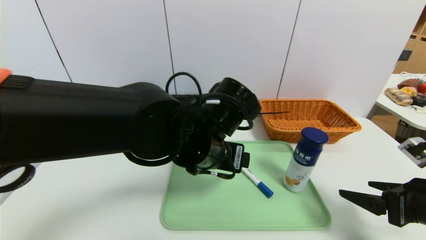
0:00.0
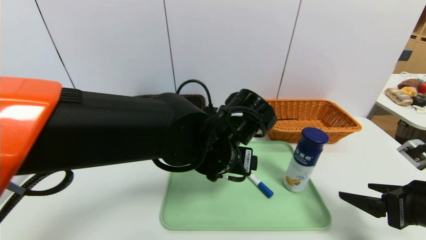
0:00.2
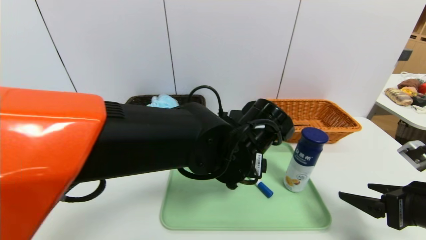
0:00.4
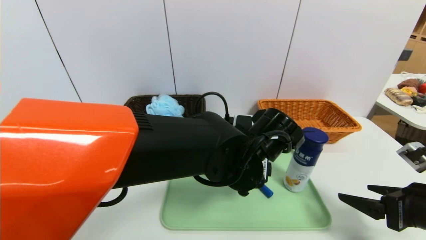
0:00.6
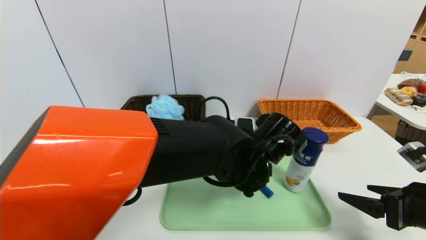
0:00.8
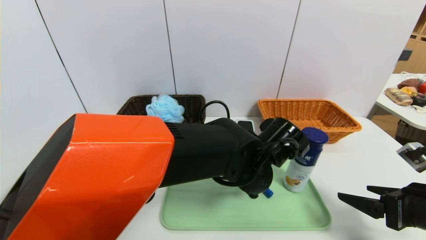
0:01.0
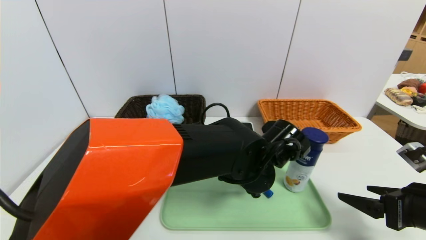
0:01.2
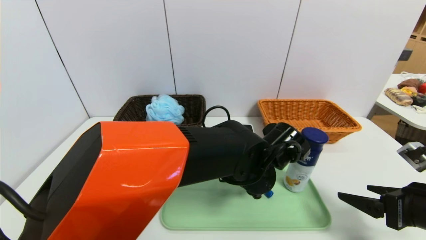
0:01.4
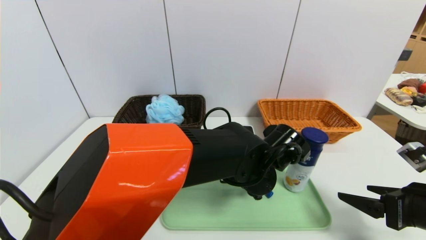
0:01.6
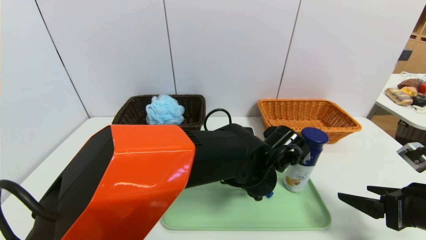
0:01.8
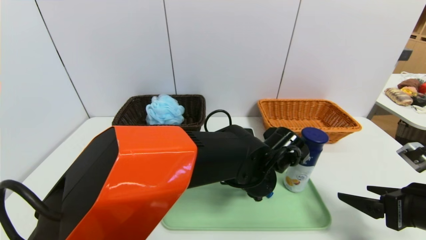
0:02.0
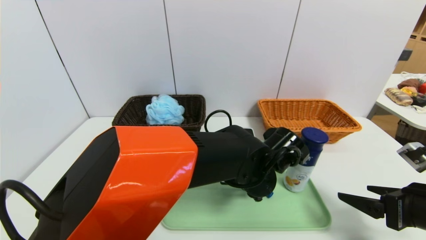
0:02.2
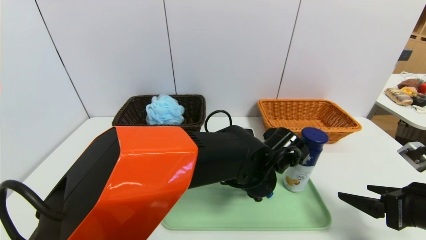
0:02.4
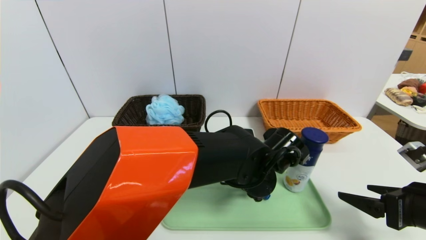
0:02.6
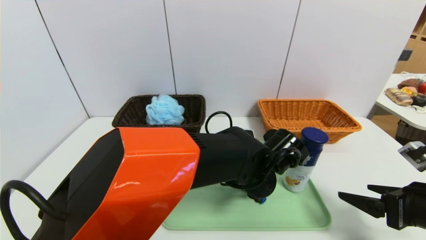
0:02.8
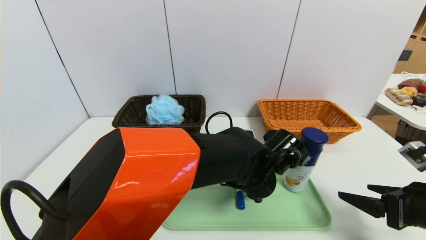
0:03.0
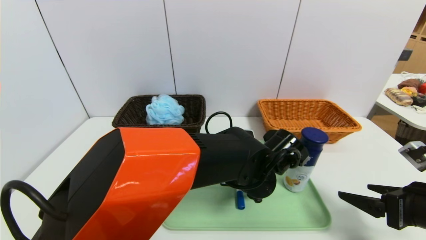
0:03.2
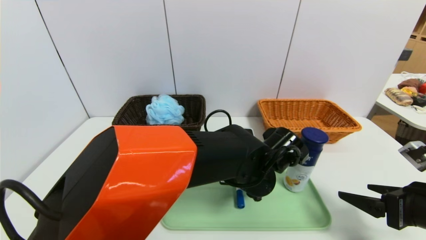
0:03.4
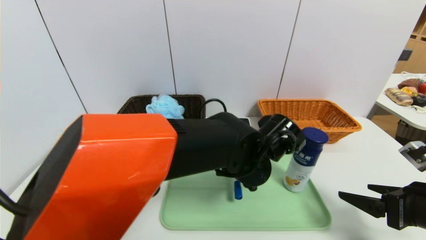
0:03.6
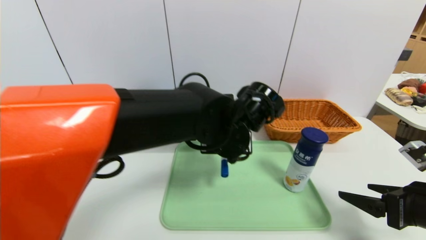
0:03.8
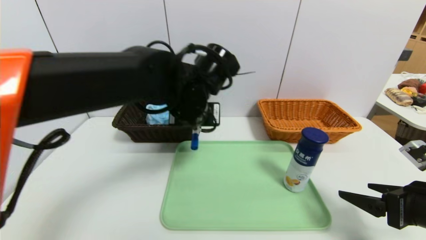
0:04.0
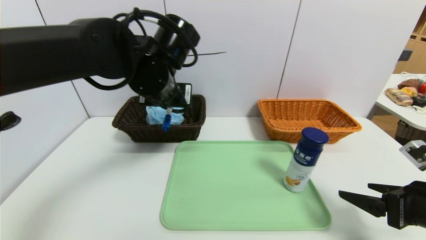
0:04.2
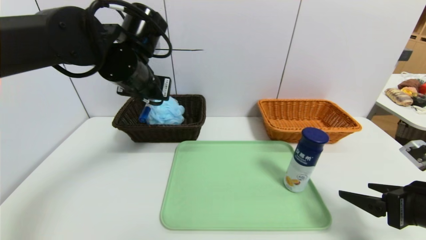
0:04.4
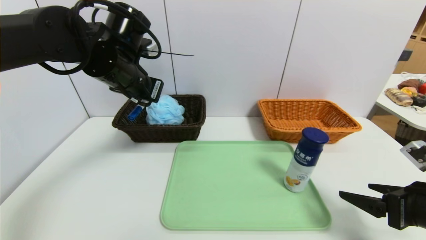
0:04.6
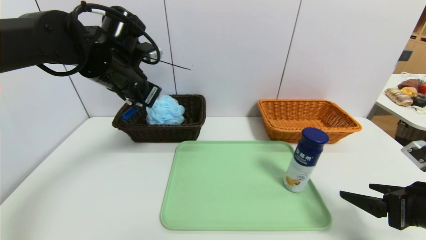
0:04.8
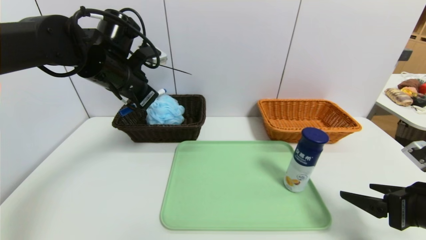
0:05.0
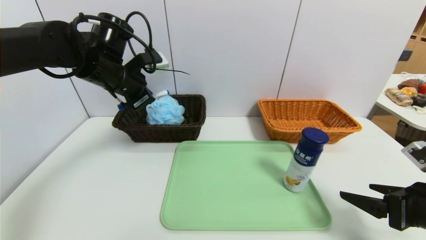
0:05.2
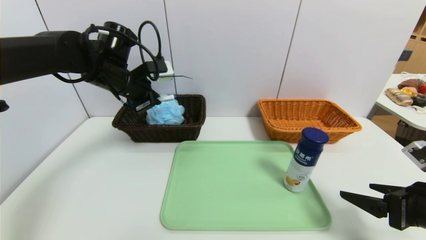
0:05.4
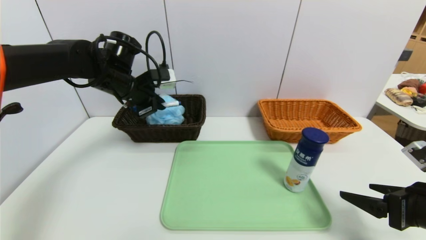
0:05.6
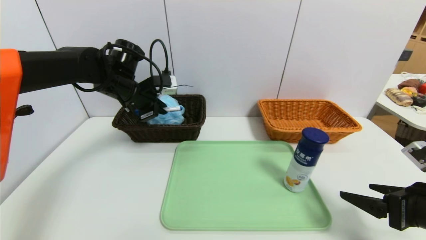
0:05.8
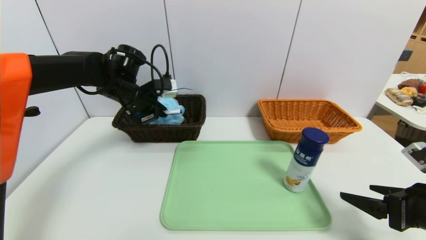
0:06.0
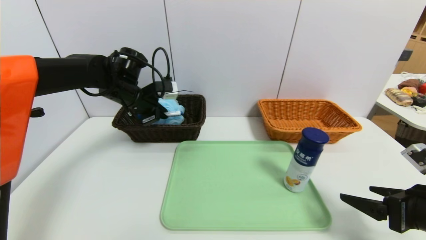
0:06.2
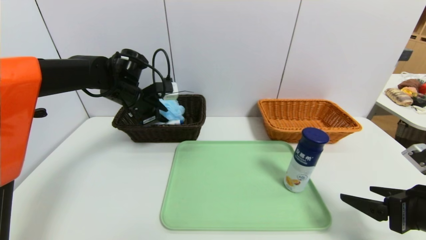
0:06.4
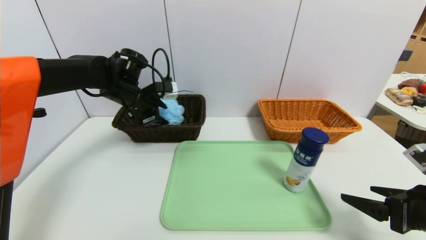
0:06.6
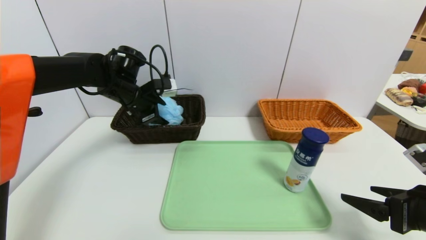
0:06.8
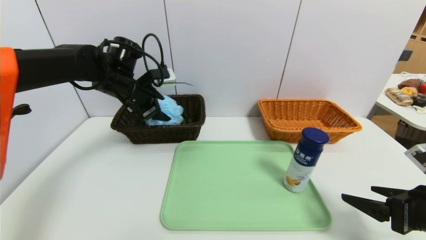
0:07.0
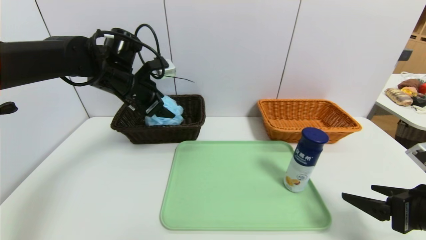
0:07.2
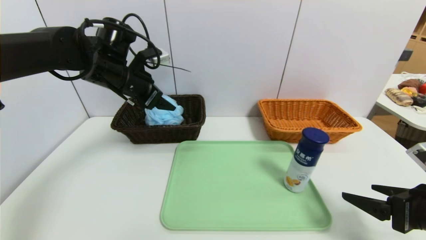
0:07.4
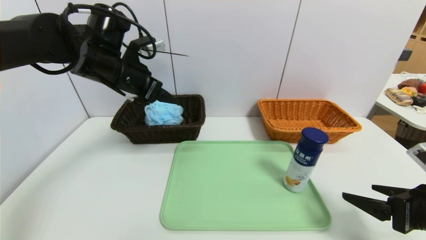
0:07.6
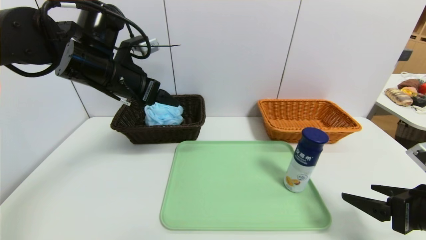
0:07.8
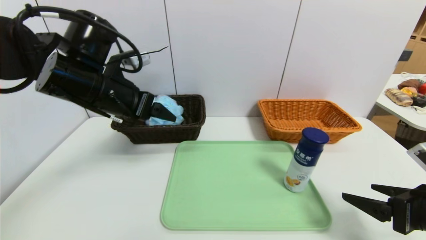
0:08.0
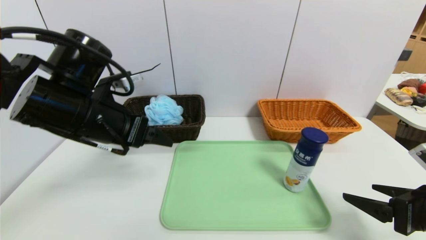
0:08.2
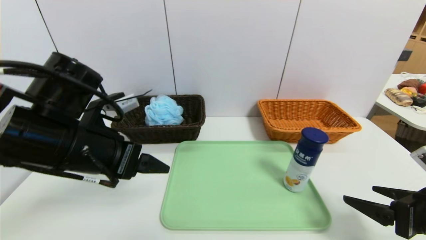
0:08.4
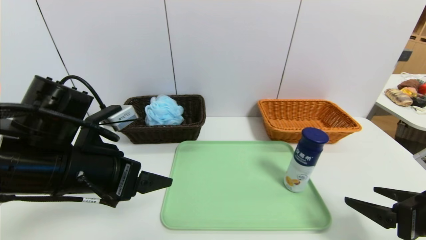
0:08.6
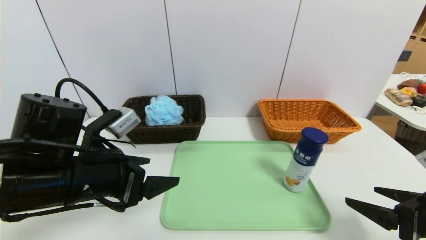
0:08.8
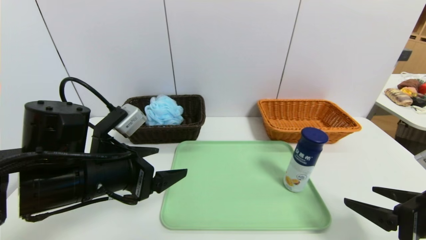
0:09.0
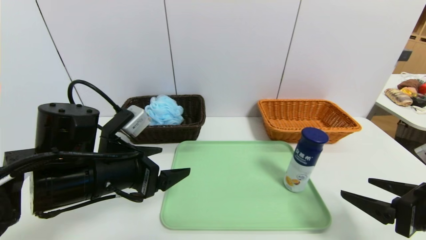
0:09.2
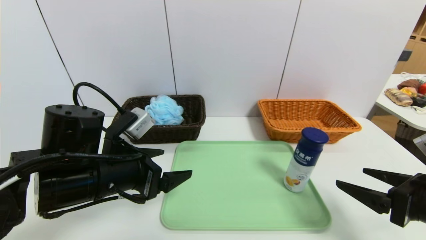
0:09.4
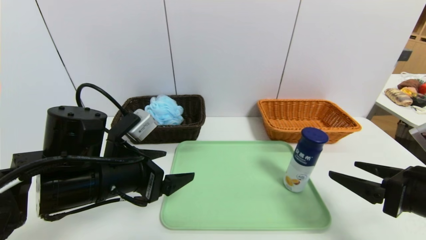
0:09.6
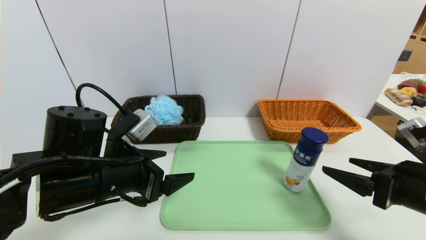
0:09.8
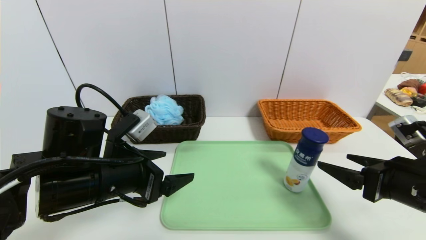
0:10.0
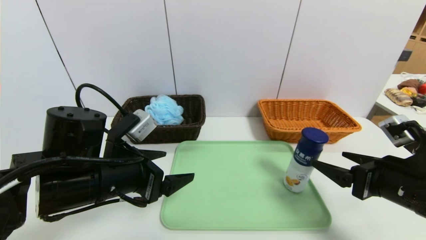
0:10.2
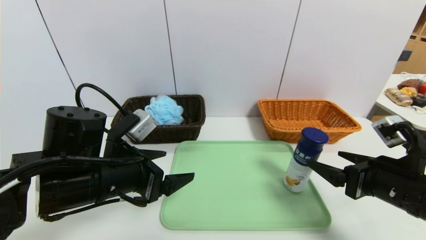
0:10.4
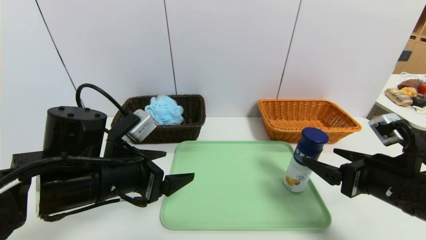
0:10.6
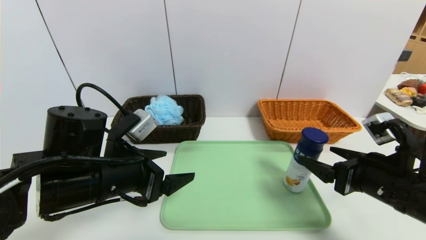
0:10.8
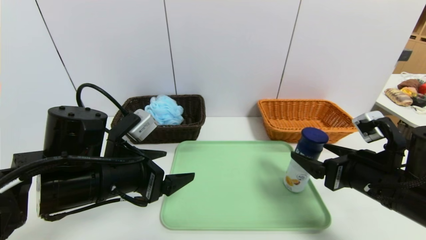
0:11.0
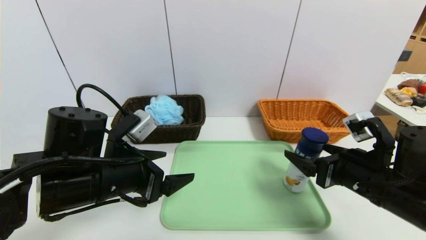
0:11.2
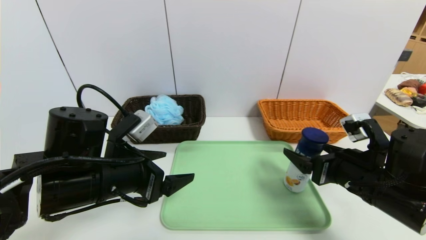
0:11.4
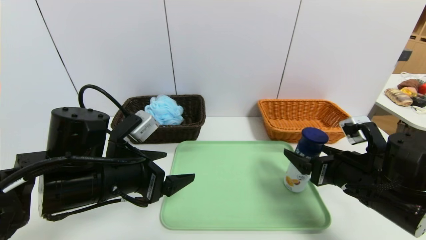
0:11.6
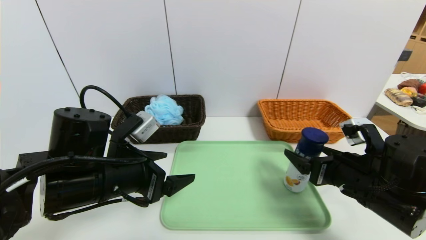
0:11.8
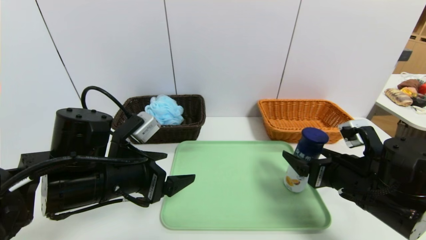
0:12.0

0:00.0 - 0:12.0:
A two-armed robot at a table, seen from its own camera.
Task of the whole recording: place the food in the right basket with the right gripper, and place the non food items in the left basket with the left gripper.
Step, 0:00.0 - 0:06.8: Grasp the blue marker pen and put it in the left basket.
0:00.0 - 0:01.6: The left gripper travels to the right and downward by some 10 cm.
0:01.6 - 0:03.0: The left gripper closes its fingers.
0:03.0 - 0:04.4: The left gripper shifts about 30 cm to the left and upward.
0:04.4 - 0:06.0: The left gripper moves forward, downward and to the left, about 10 cm.
0:06.0 - 0:07.6: The left gripper heads upward and backward, covering about 10 cm, and opens its fingers.
0:07.6 - 0:09.0: The left gripper is displaced backward and downward by roughly 20 cm.
0:09.0 - 0:10.4: The right gripper travels to the left by roughly 5 cm.
0:10.4 - 0:12.0: The right gripper ends up about 5 cm from where it was.

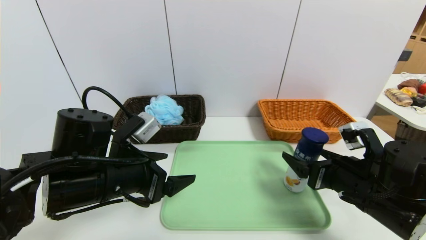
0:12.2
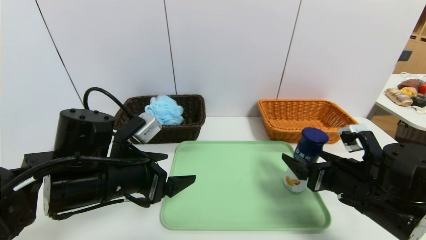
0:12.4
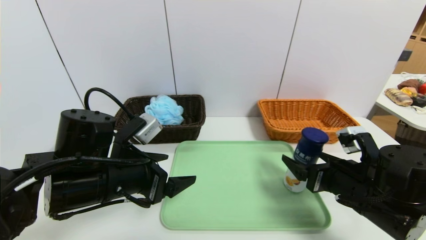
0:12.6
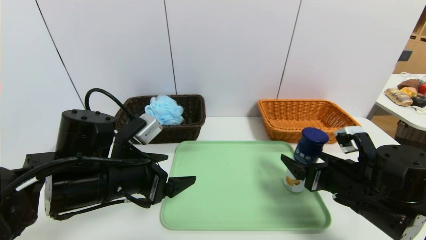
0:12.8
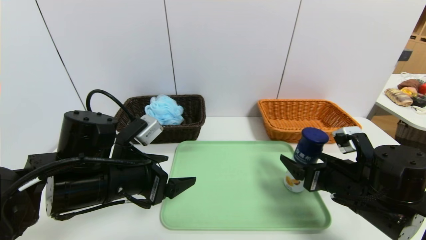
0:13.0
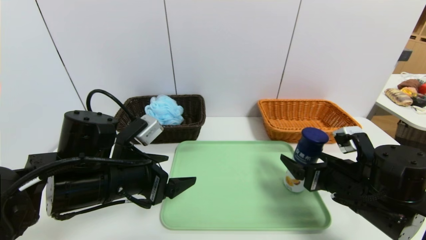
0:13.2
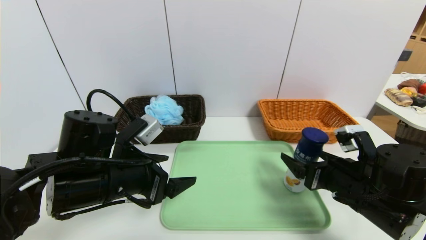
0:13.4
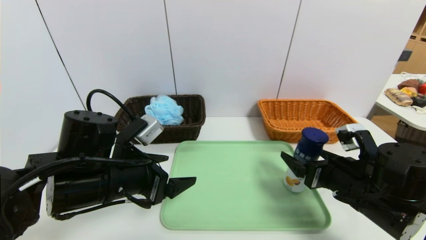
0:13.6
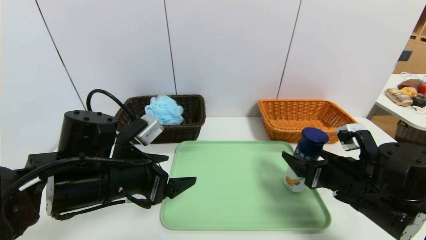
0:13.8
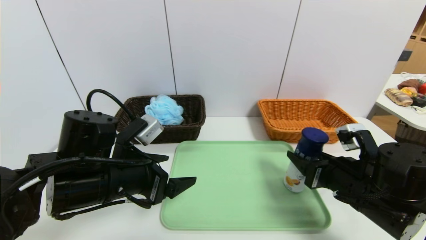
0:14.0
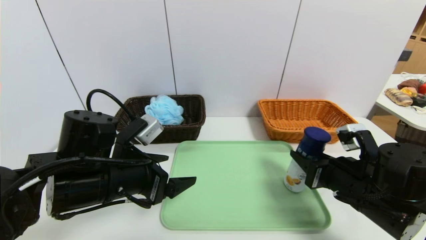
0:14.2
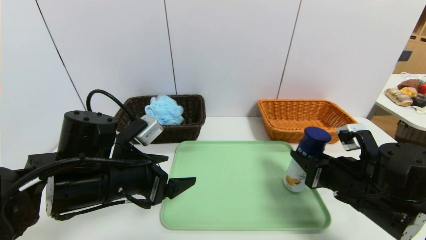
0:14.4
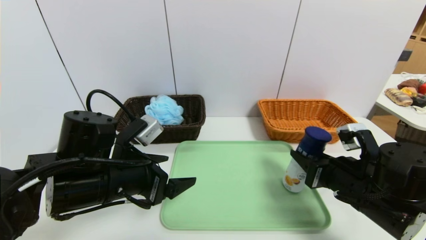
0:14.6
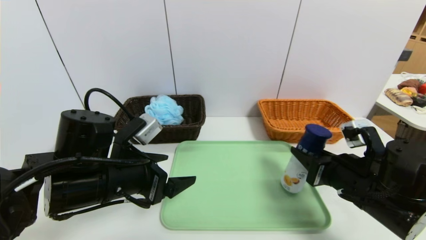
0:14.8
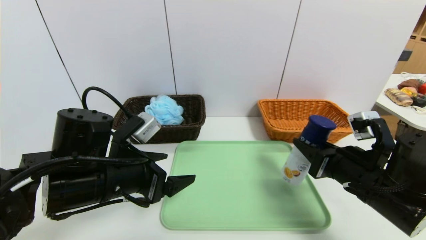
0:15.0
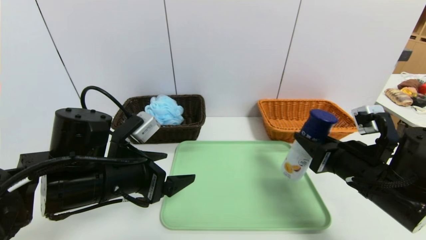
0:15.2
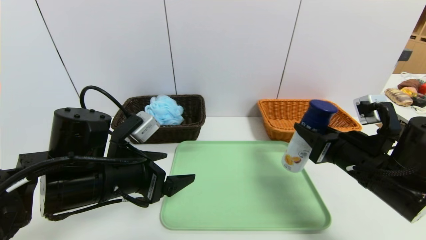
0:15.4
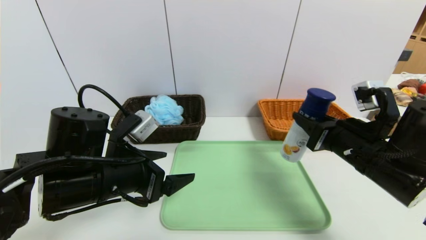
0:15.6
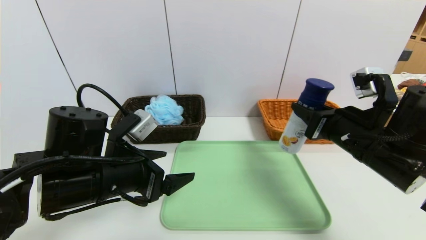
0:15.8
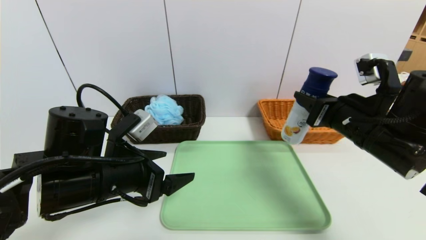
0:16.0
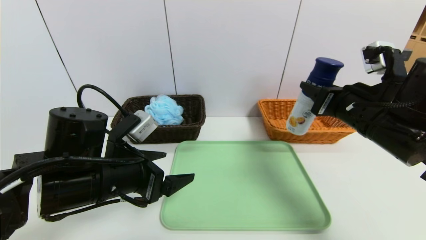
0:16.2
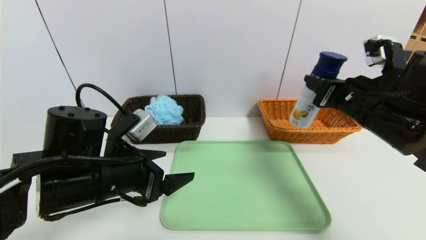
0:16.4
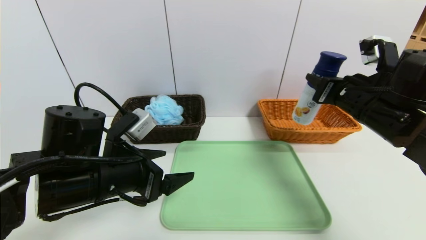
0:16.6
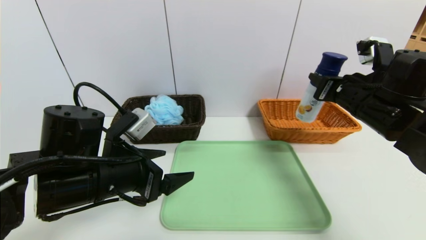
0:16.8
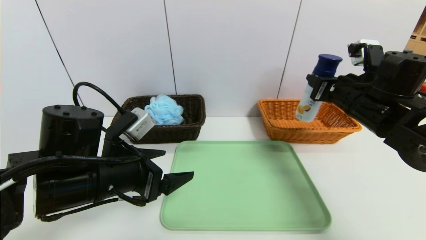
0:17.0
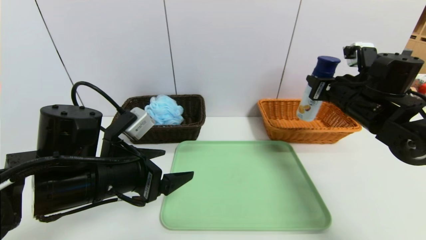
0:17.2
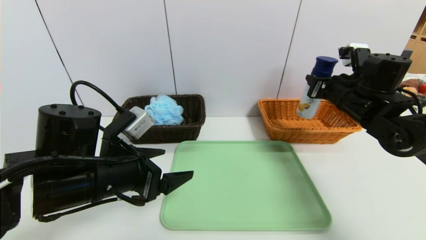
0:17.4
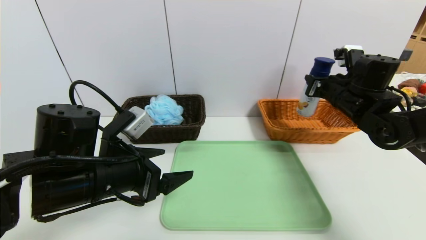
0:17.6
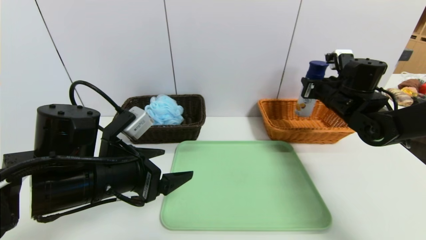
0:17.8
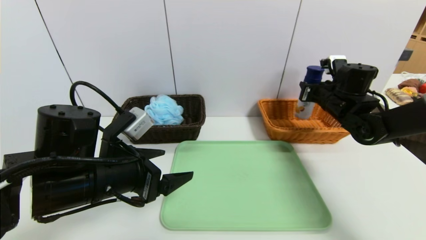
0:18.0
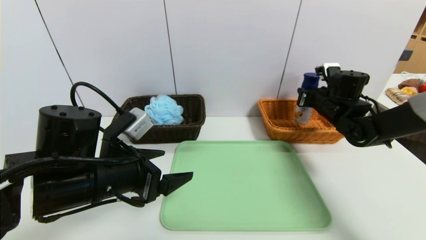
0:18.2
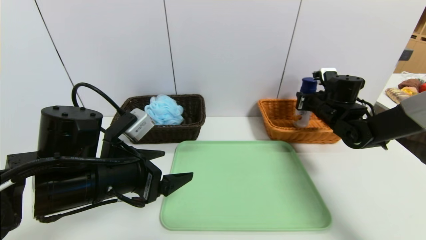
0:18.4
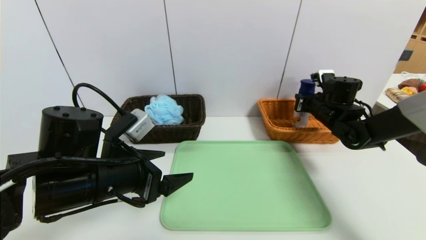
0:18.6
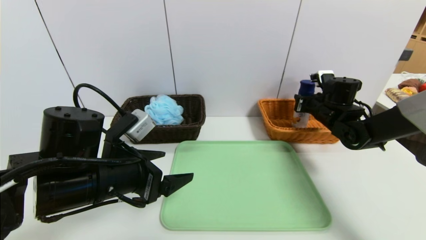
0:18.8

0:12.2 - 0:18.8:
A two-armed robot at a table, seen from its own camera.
Task of the whole recording: place the food in the right basket with the right gripper, and place the non food items in the left basket with the left gripper.
0:12.2 - 0:13.8: Both grippers stay about where they are.
0:13.8 - 0:15.4: The right gripper closes.
0:15.4 - 0:17.2: The right gripper moves forward and upward, approximately 15 cm.
0:17.2 - 0:18.8: The right gripper travels forward and downward by roughly 10 cm.
